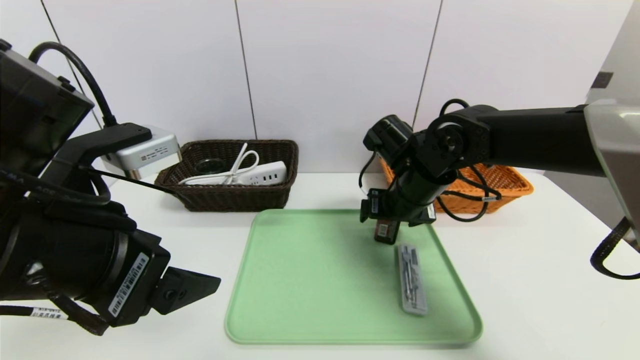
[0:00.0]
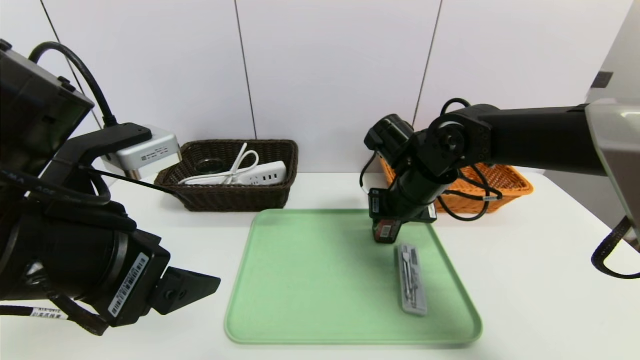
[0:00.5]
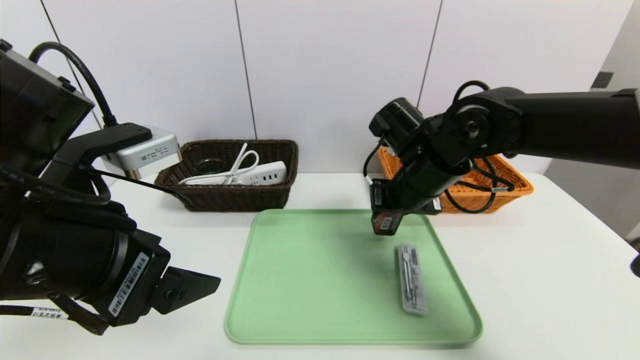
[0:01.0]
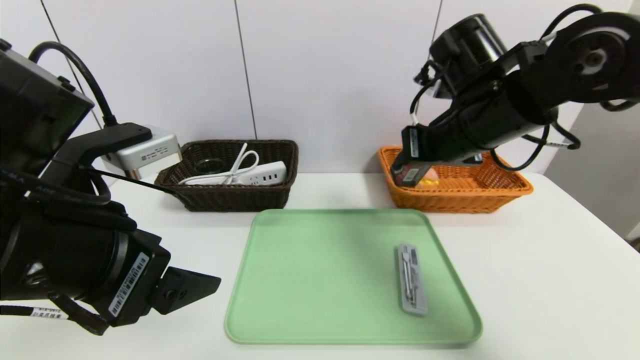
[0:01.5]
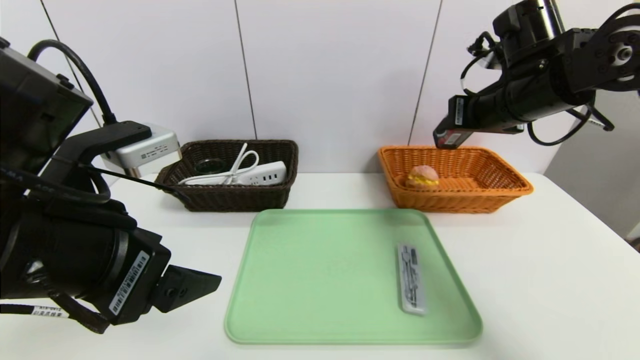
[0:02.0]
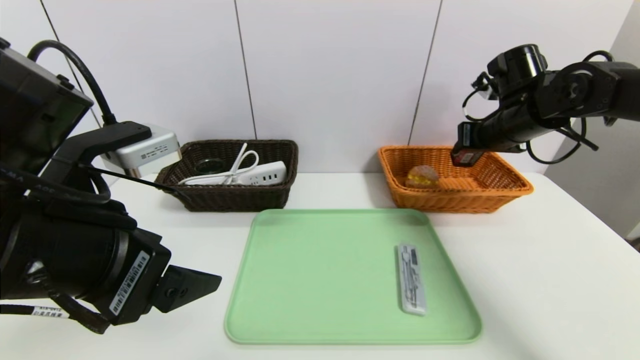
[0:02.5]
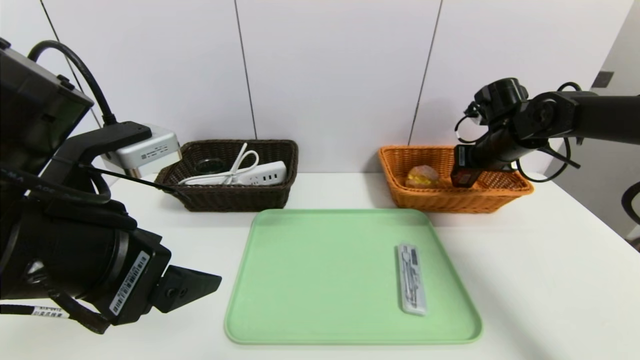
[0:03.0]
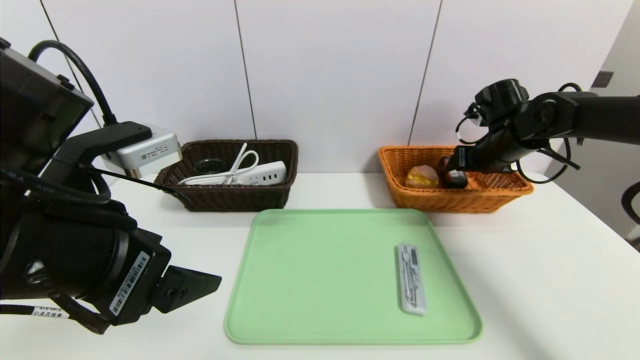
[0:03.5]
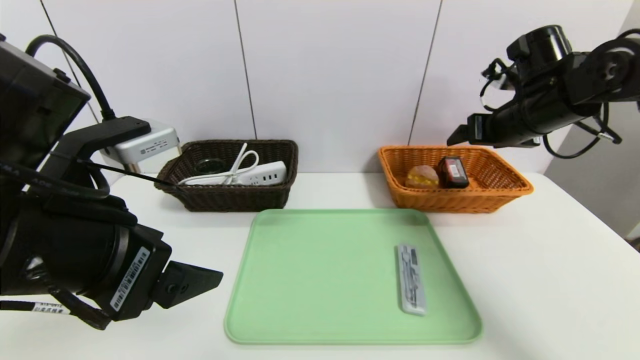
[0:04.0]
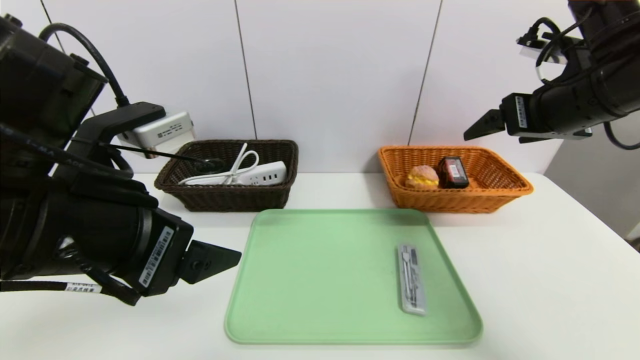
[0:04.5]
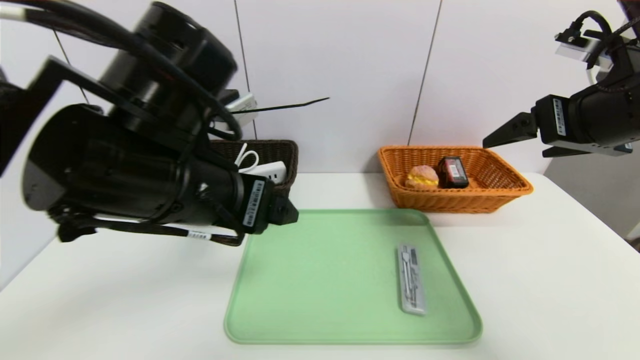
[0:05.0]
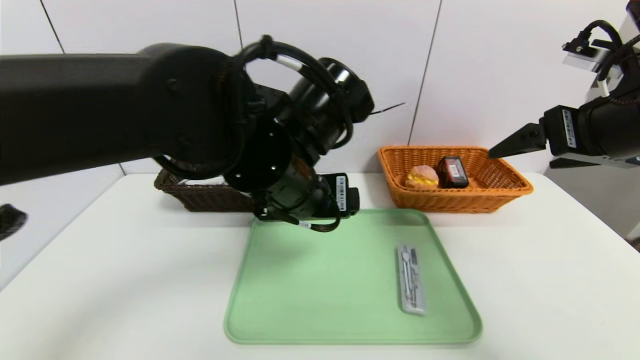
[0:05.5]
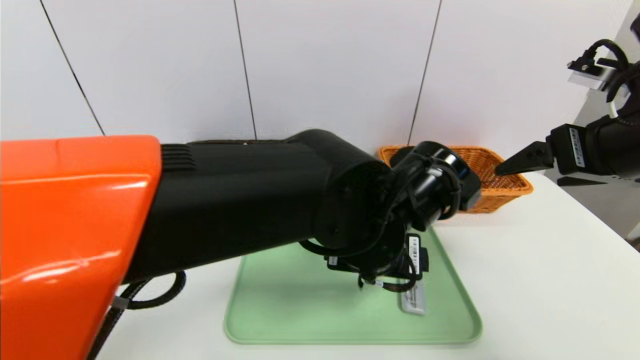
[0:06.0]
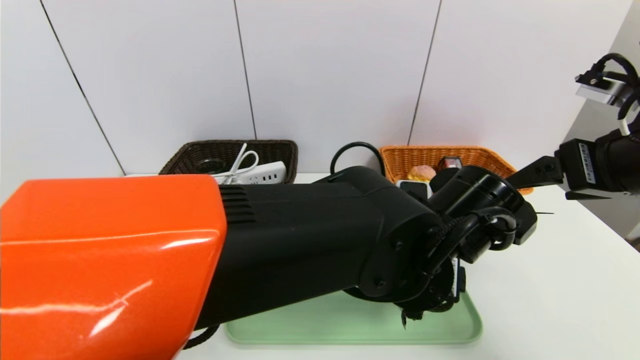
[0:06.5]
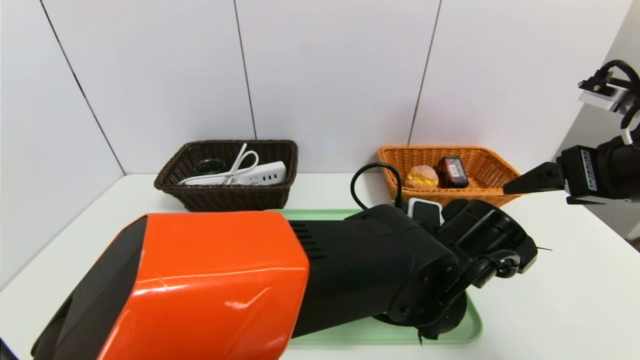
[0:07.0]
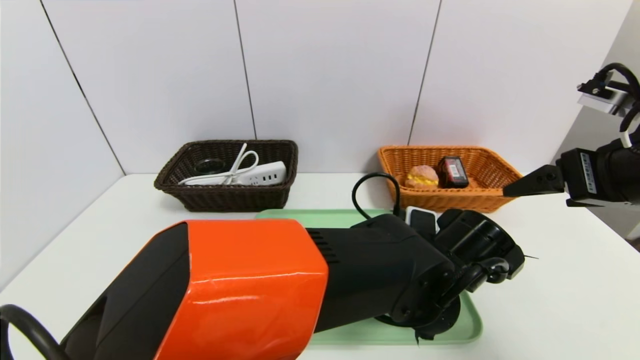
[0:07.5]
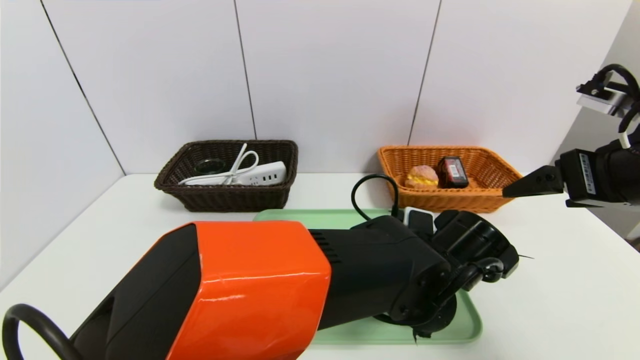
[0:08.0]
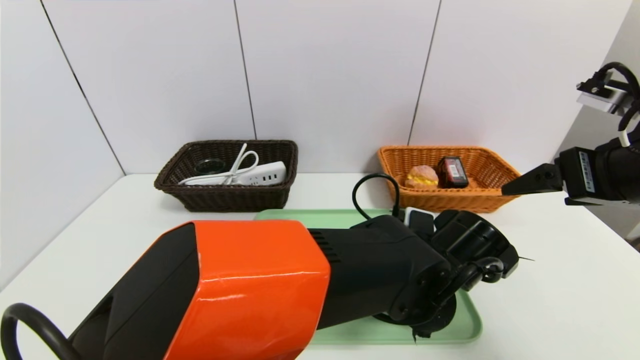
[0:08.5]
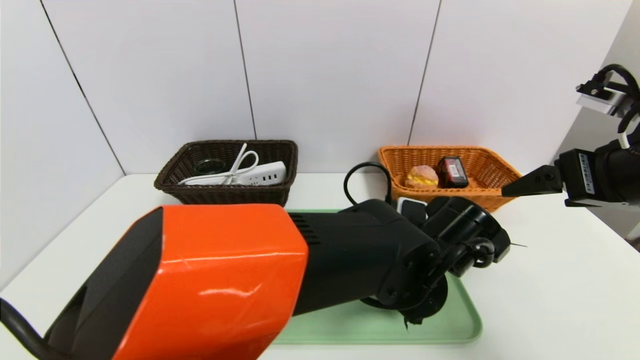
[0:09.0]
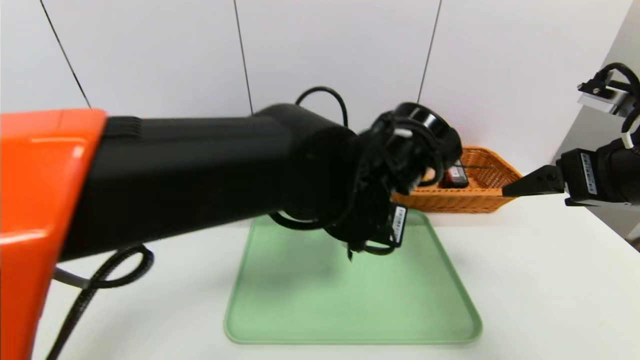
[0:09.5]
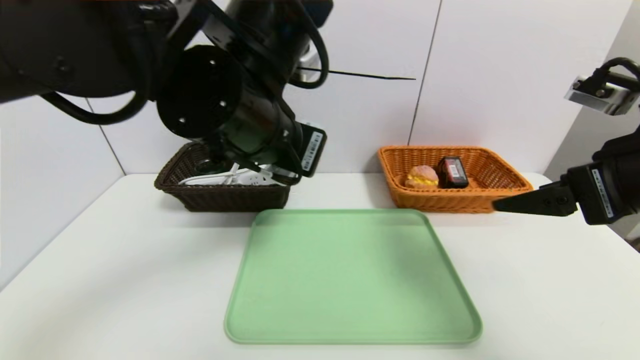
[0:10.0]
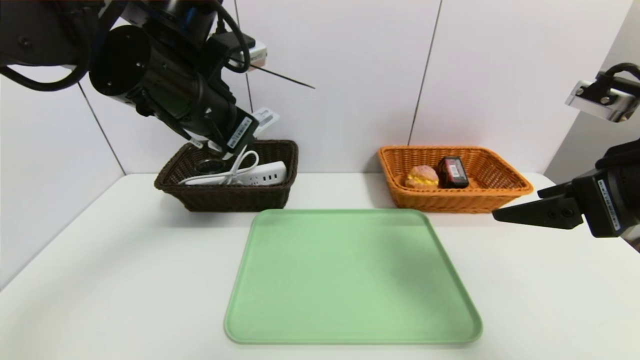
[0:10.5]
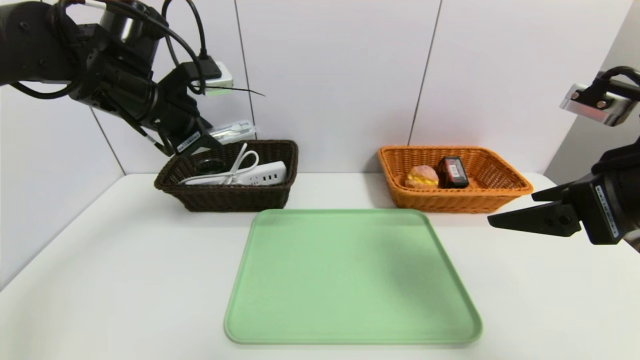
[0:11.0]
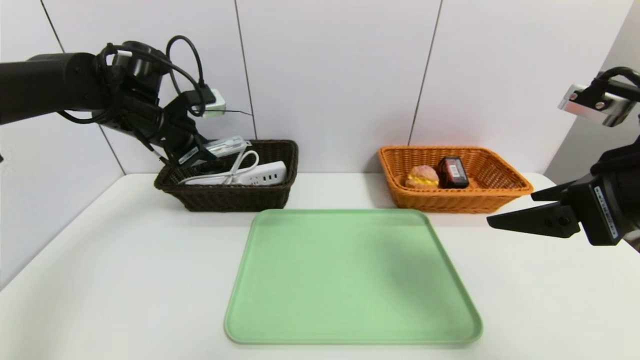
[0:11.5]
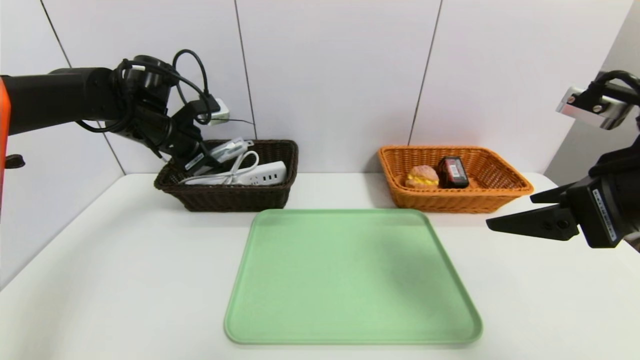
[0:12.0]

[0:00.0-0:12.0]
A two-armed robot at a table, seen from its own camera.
Task of the whole recording: place the food in the right basket with the right gripper, and place the non food items in the left basket with the left gripper.
Step, 0:00.0 to 0:04.0: Grasp the square chewing gum and put it in the right basket.
0:00.0 to 0:02.0: The right gripper shifts roughly 15 cm upward and to the right, and closes.
0:02.0 to 0:04.0: The right gripper travels downward and back again, some 10 cm each way, and opens its fingers.
0:04.0 to 0:06.0: The left gripper is displaced to the right by approximately 25 cm; the right gripper goes about 15 cm backward.
0:06.0 to 0:08.0: The left gripper heads downward and to the right, covering roughly 10 cm.
0:08.0 to 0:10.0: The left gripper travels upward and to the left by roughly 25 cm, and closes up.
0:10.0 to 0:12.0: The left gripper moves to the left and forward, roughly 25 cm.

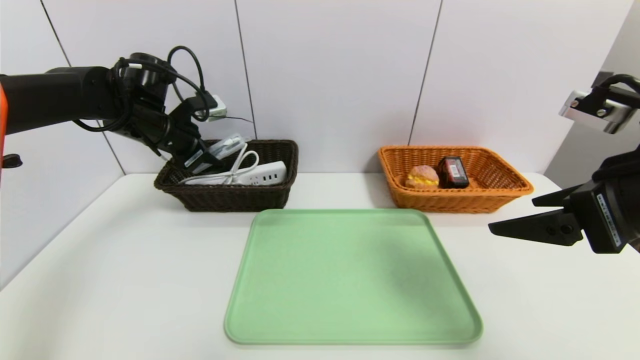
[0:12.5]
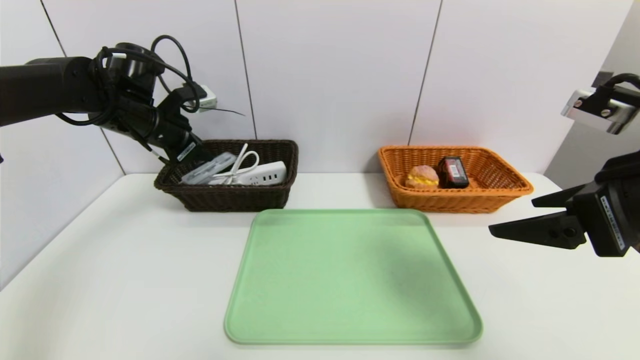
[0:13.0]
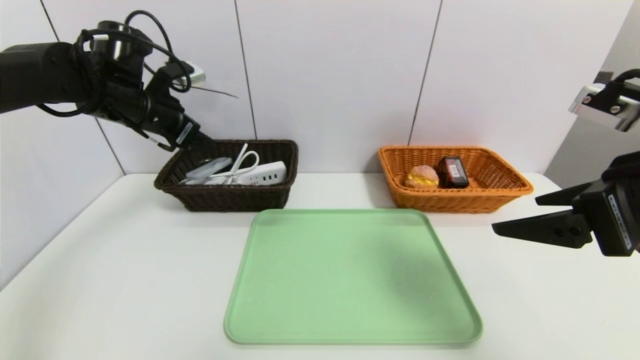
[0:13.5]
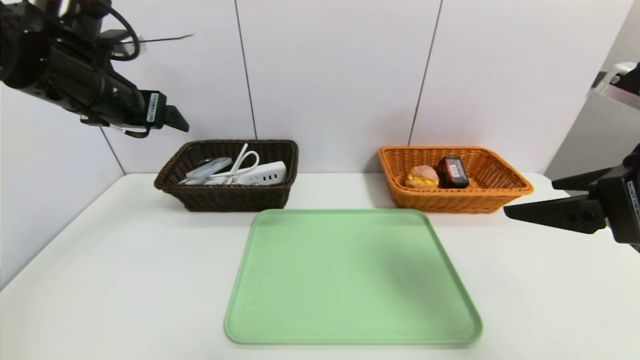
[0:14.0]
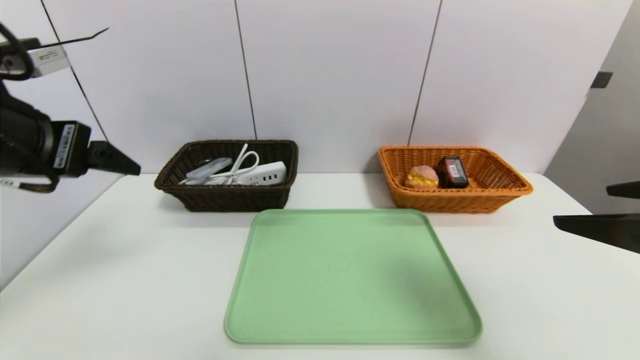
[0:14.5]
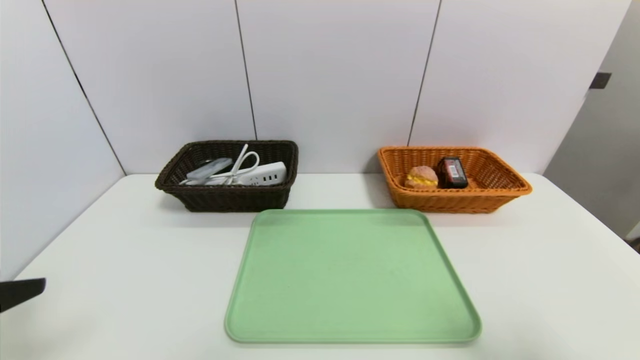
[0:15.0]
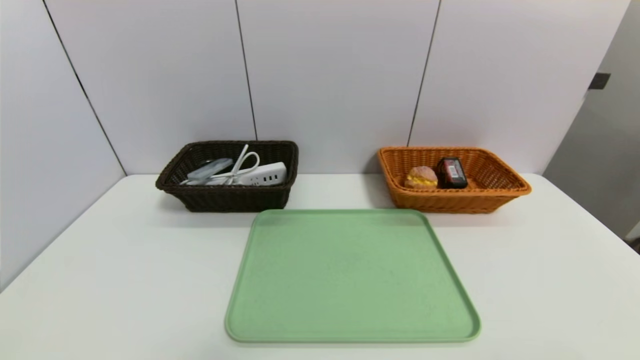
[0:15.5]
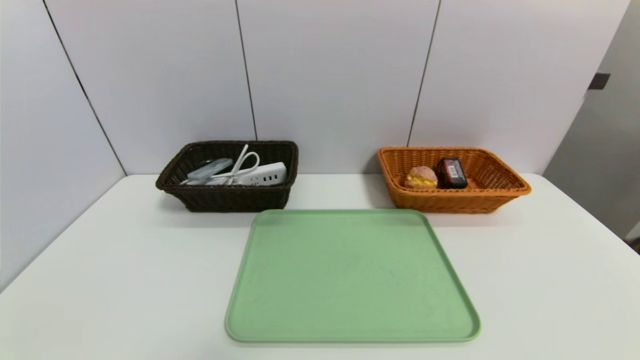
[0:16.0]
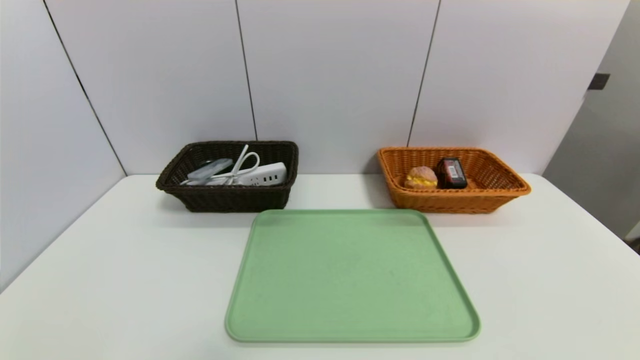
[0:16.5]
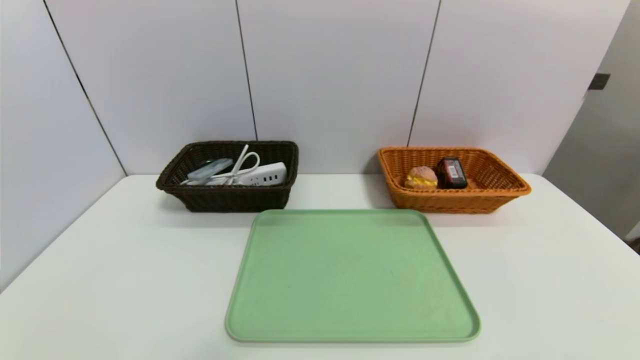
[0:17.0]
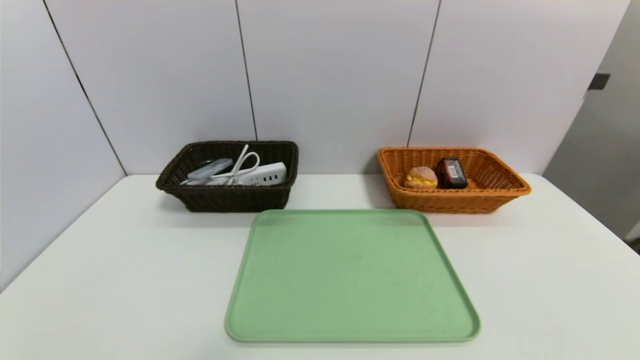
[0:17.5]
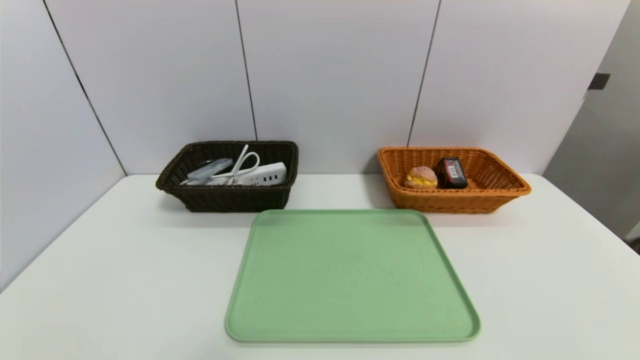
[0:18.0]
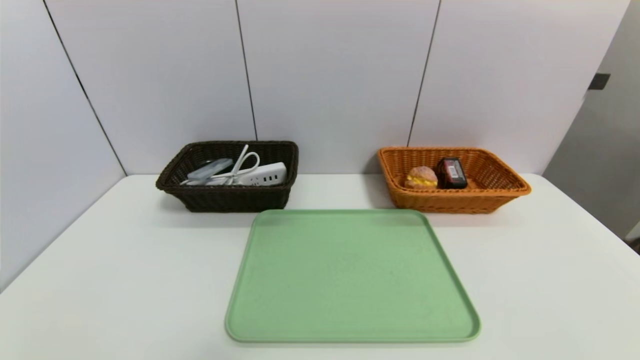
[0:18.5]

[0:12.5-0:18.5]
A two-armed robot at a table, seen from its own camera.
Task of the whole recording: place the food in the right basket with the right gripper, and place the non food items in the left basket with the left gripper.
0:12.5 to 0:14.5: The left gripper heads backward, covering approximately 20 cm, and opens its fingers; the right gripper is displaced backward by roughly 5 cm.
0:14.5 to 0:16.5: The left gripper shifts roughly 35 cm backward and downward. Meanwhile the right gripper travels backward and downward by roughly 20 cm.

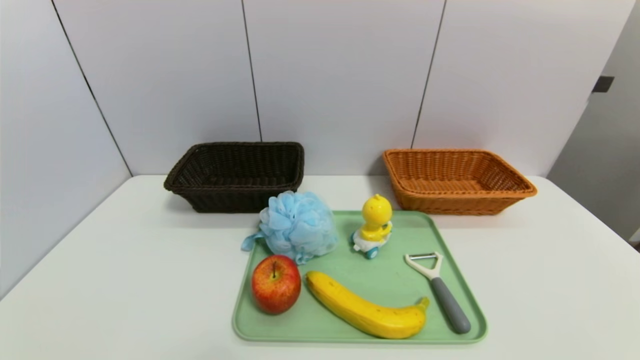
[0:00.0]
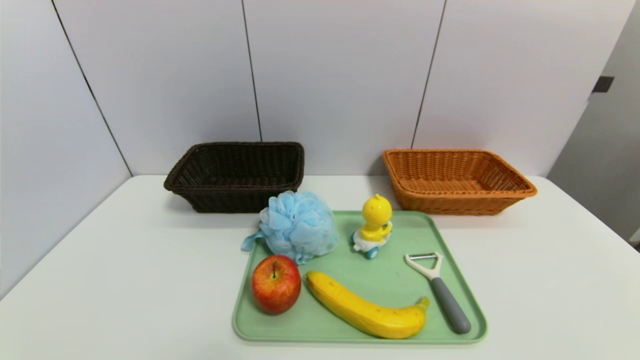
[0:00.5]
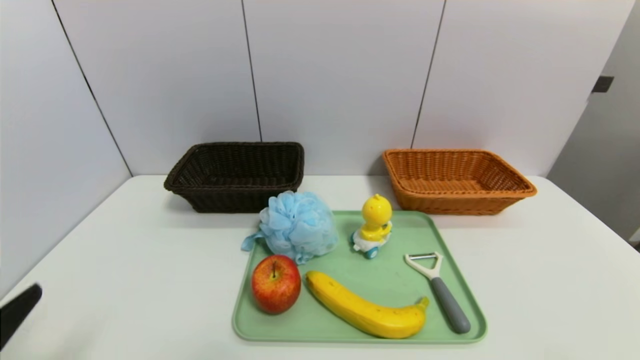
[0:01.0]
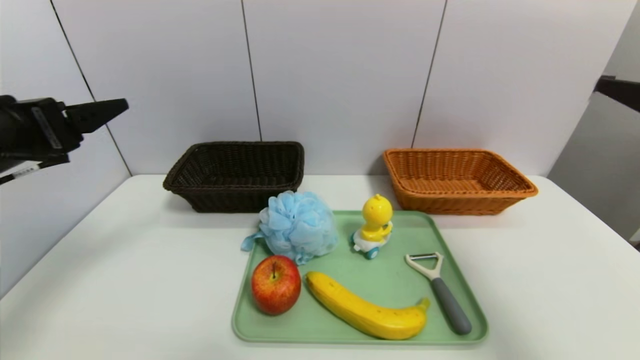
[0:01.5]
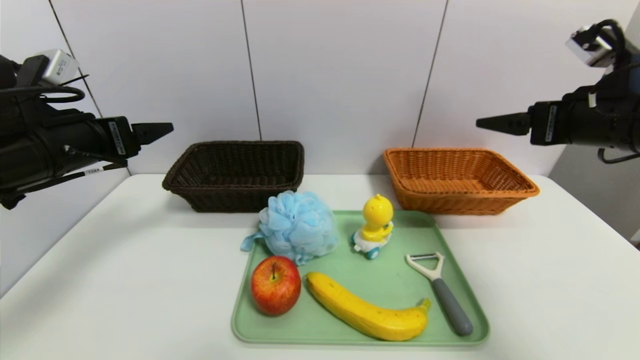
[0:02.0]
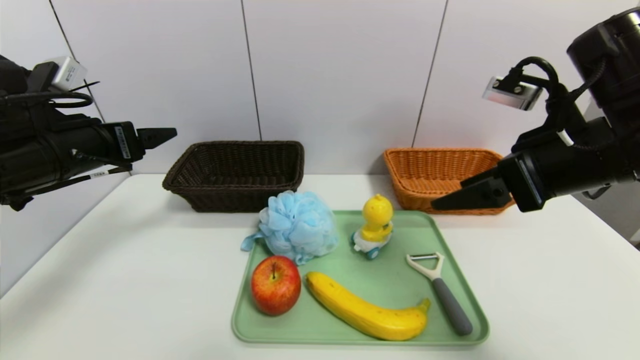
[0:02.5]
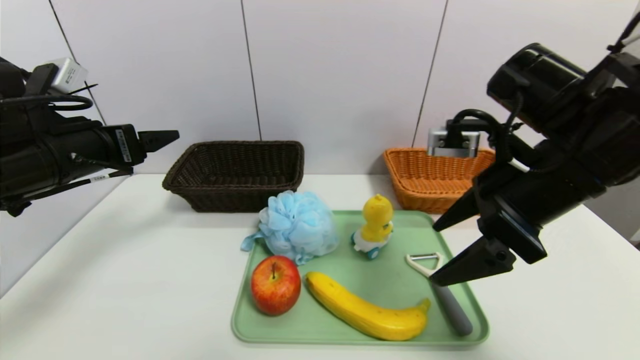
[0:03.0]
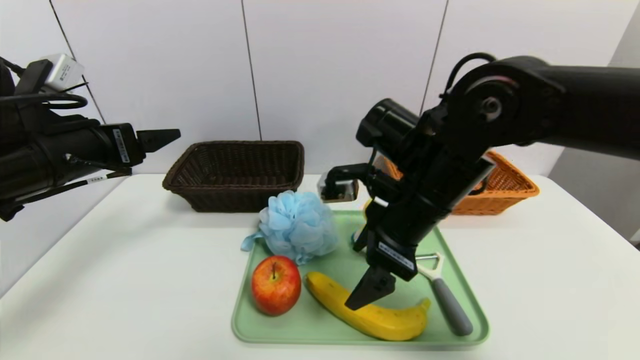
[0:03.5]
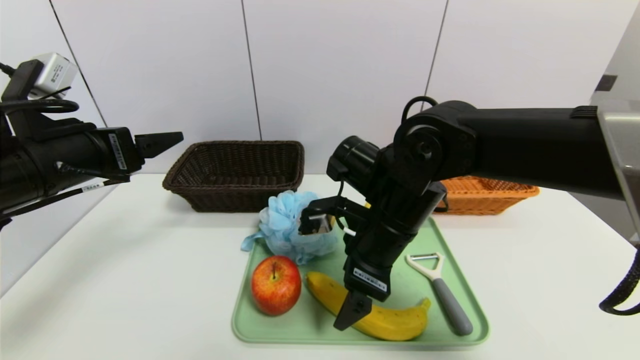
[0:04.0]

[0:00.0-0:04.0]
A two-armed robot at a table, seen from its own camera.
Task of the whole recording: place the food in the right basket with the right gripper, and place the non food items in the left basket with the left gripper.
0:00.0 to 0:02.0: Both grippers move forward and upward, some 35 cm.
0:02.0 to 0:04.0: The right gripper heads to the left and downward, covering about 25 cm.
